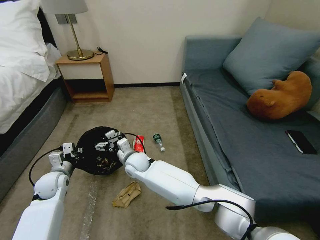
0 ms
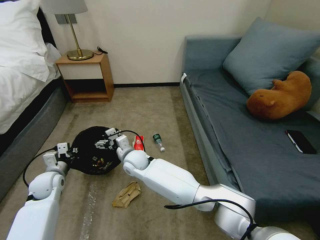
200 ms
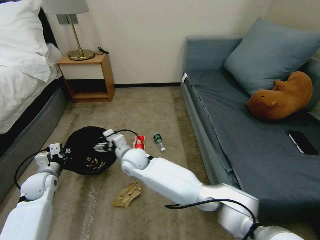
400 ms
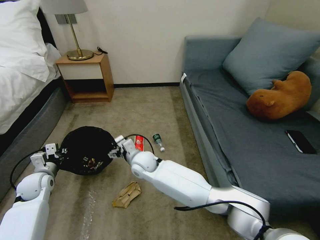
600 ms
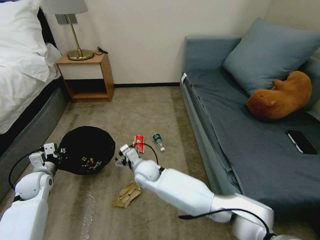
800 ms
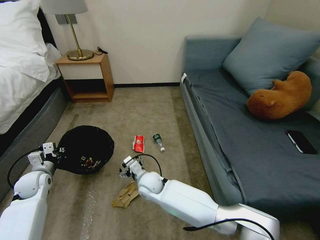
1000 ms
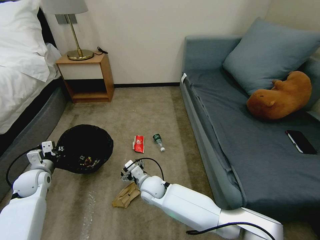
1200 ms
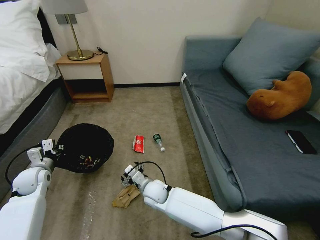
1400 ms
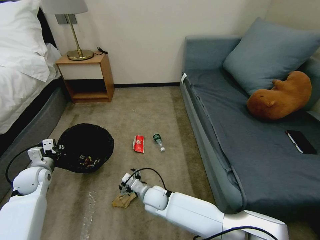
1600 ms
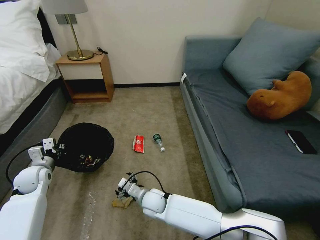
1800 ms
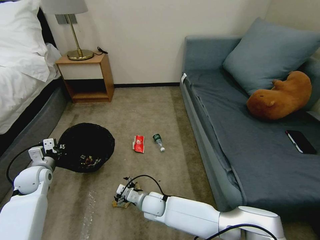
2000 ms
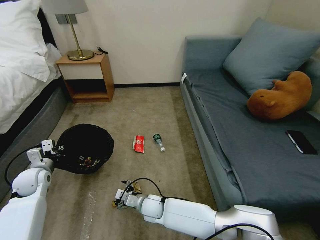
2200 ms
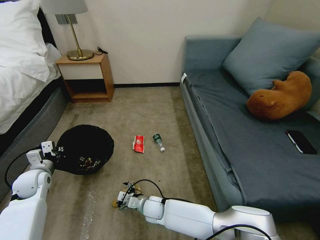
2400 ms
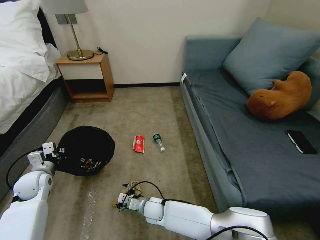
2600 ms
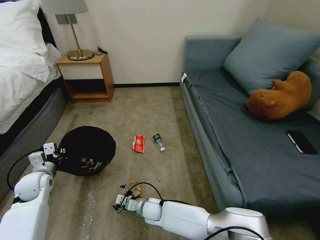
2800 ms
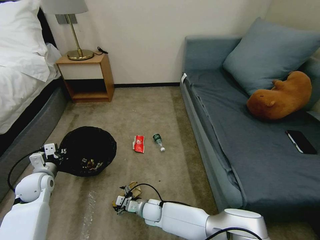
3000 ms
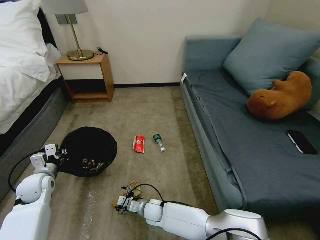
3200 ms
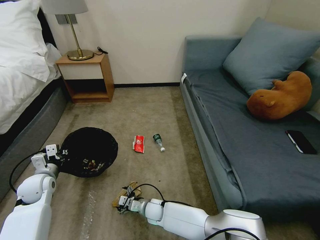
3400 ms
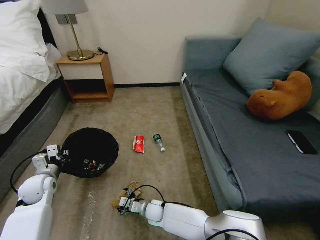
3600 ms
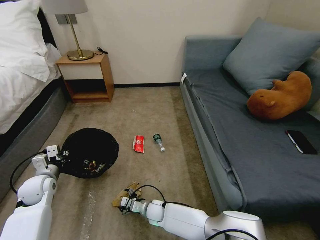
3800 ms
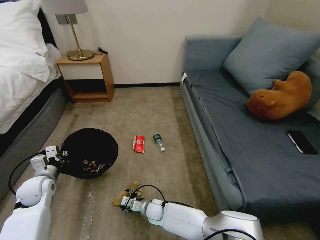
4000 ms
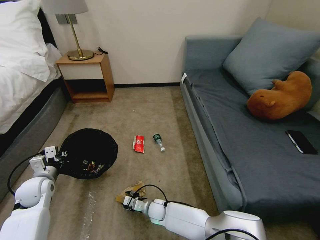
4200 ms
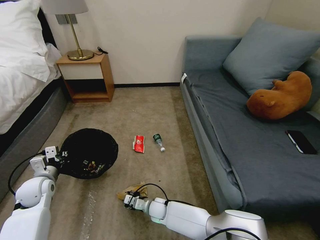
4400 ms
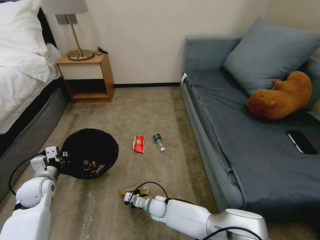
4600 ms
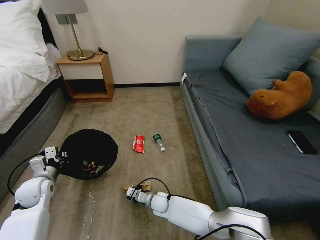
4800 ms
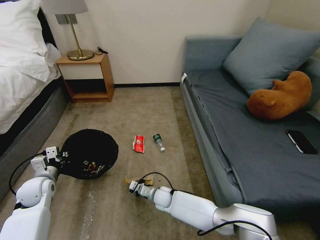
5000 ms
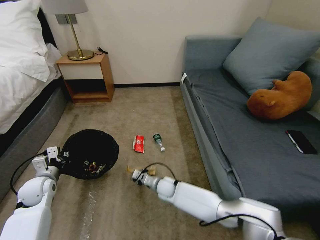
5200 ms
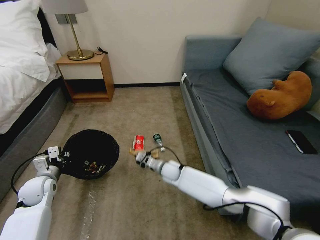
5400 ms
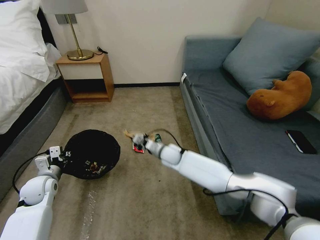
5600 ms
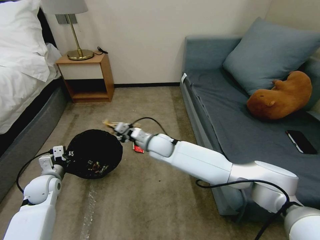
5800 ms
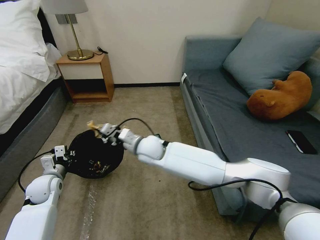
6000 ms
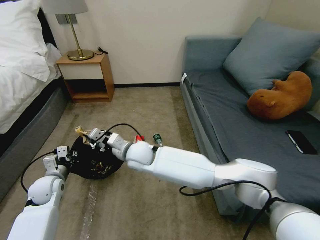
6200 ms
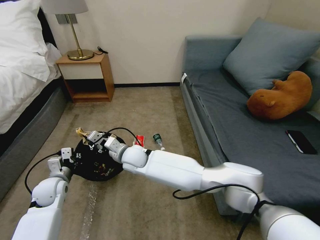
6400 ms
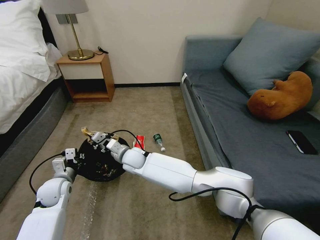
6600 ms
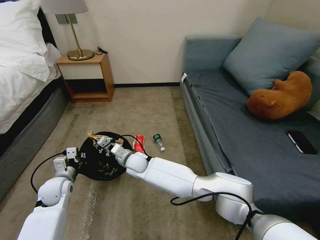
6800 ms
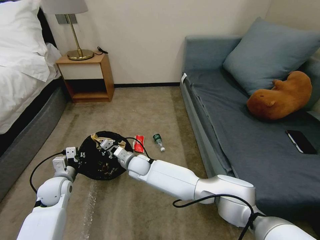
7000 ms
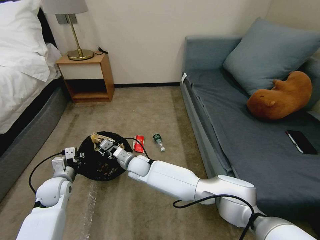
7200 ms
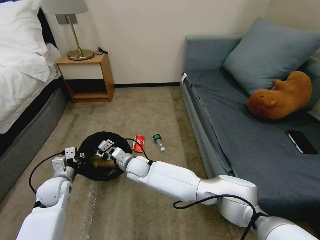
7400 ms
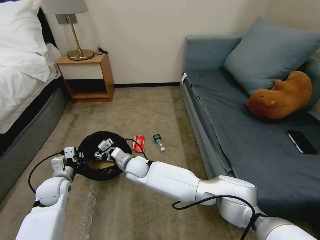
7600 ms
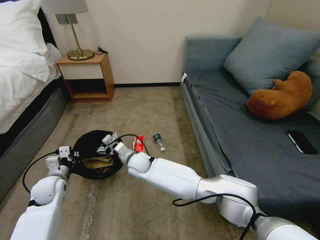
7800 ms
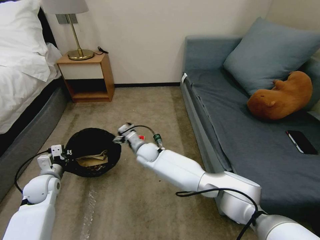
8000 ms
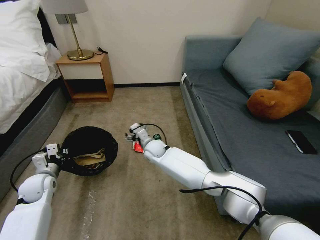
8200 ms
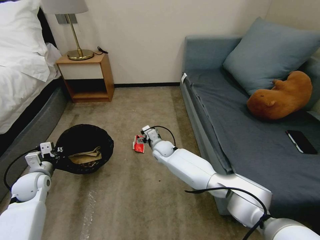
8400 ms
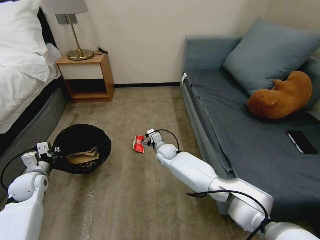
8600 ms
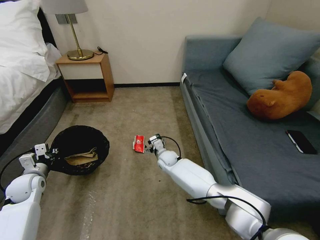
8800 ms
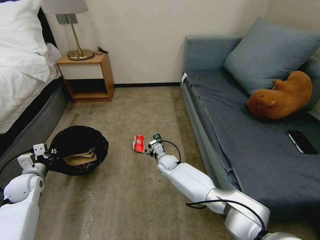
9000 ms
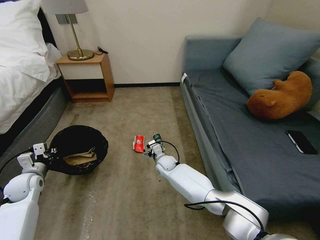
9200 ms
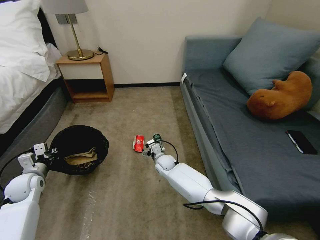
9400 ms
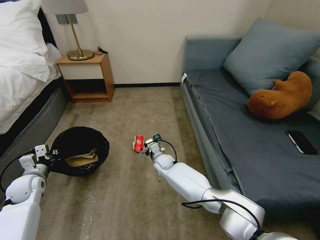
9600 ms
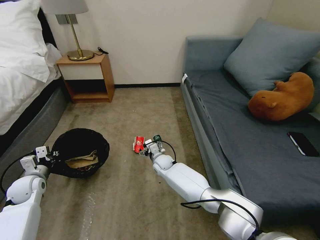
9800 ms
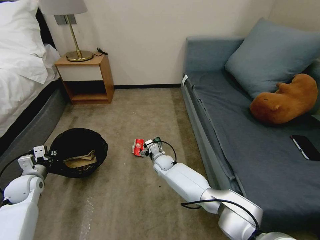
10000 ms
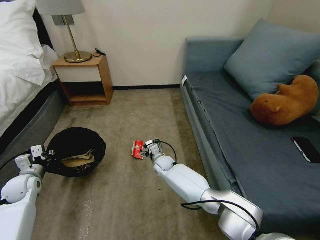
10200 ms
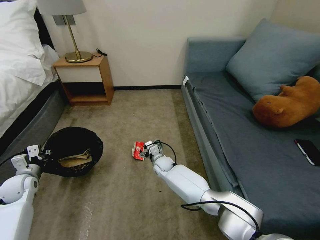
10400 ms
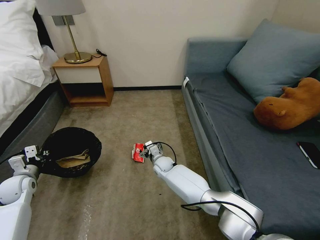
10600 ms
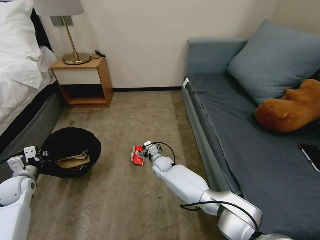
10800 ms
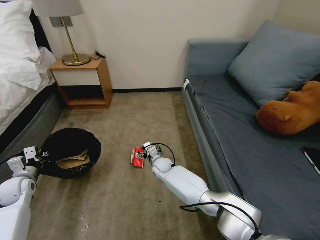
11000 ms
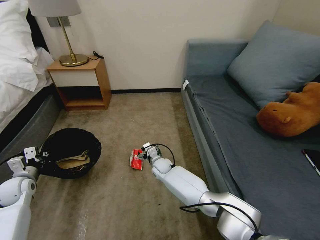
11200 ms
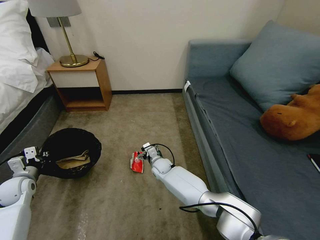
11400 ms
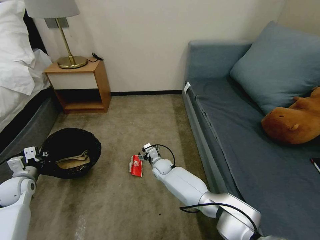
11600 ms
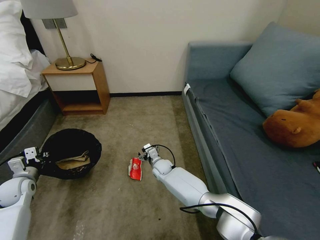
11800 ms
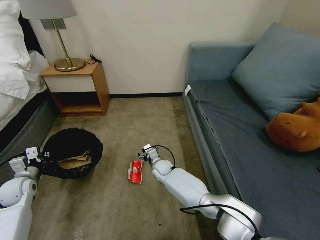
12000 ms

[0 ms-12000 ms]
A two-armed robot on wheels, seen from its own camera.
Task of the whole recording: Pick up the trash bin, then pick up the garbage on the floor and place it into the trash bin.
0 ms to 1600 ms: The right gripper moves backward, downward and to the right, some 15 cm. Meanwhile the left gripper is displaced to the left by some 5 cm.
1600 ms to 3000 ms: The right gripper travels downward by about 10 cm.
3000 ms to 4400 ms: The right gripper closes up.
4400 ms to 6000 ms: The right gripper shifts roughly 30 cm upward, and closes its fingers.
6000 ms to 7600 ms: The right gripper goes roughly 10 cm downward and to the left, and opens up.
7600 ms to 9000 ms: The right gripper travels to the right, downward and forward by some 15 cm. Meanwhile the left gripper travels to the left by roughly 10 cm.
9000 ms to 10400 ms: There are only small adjustments of the grippers.

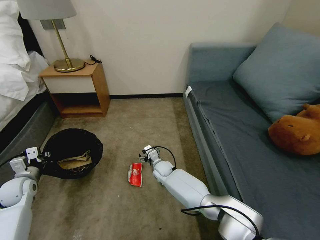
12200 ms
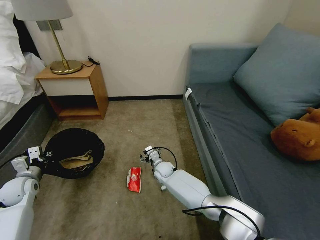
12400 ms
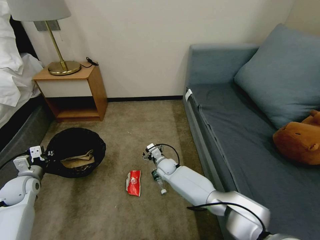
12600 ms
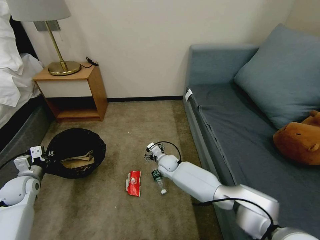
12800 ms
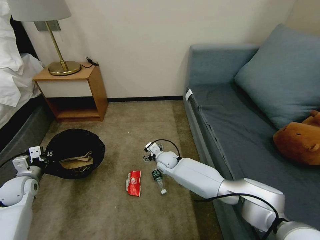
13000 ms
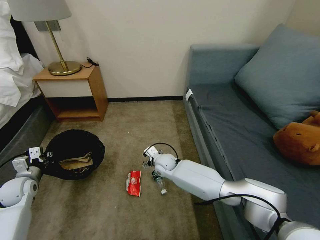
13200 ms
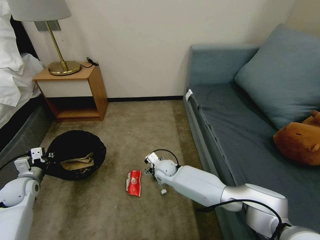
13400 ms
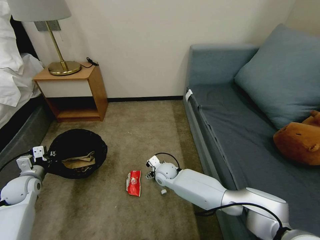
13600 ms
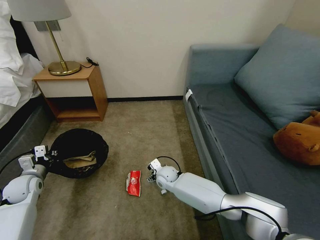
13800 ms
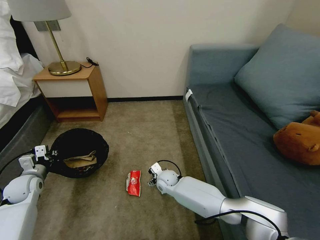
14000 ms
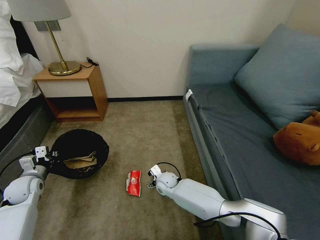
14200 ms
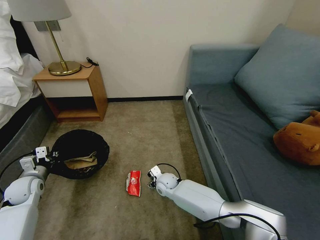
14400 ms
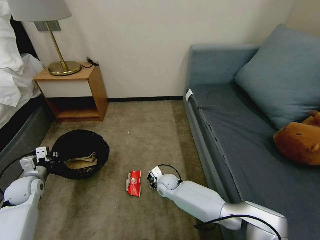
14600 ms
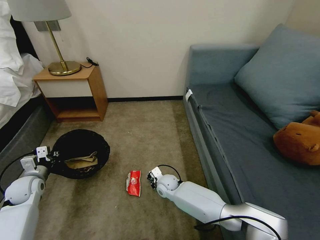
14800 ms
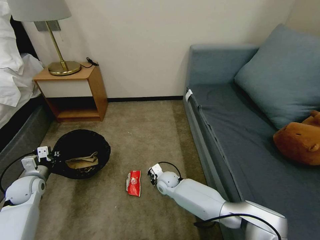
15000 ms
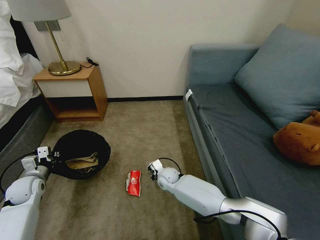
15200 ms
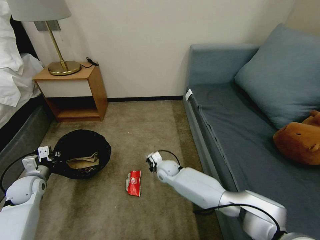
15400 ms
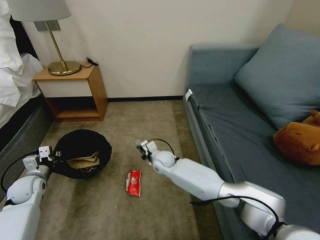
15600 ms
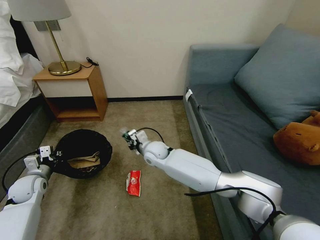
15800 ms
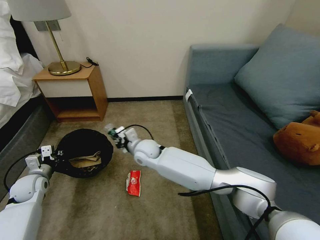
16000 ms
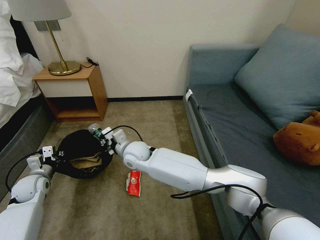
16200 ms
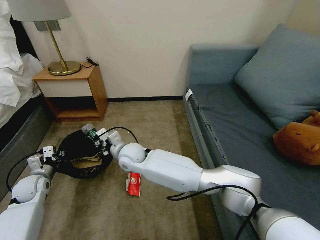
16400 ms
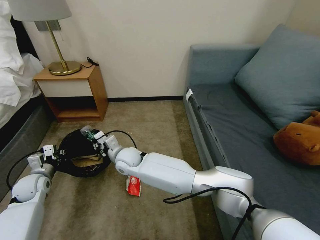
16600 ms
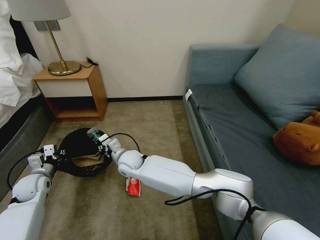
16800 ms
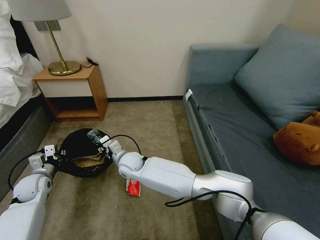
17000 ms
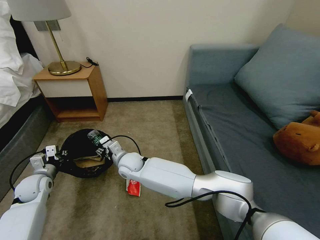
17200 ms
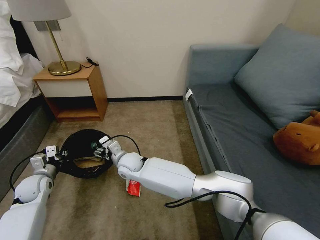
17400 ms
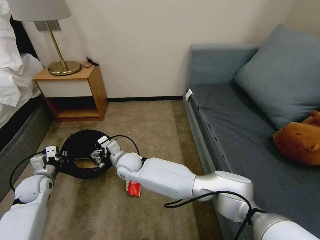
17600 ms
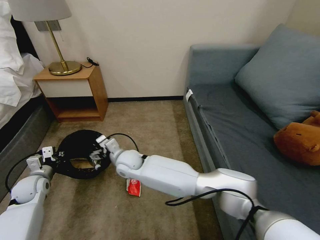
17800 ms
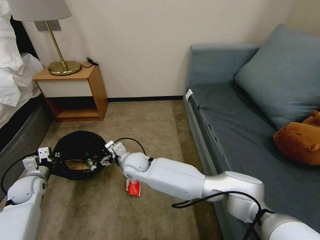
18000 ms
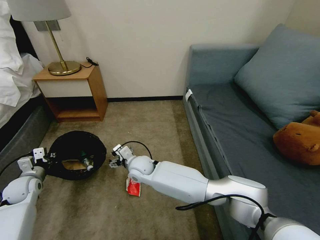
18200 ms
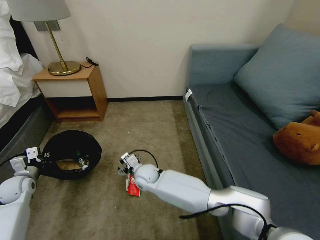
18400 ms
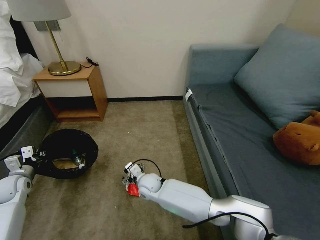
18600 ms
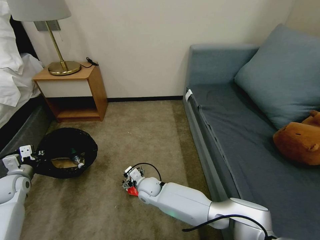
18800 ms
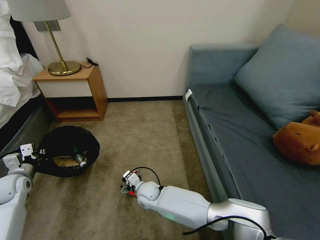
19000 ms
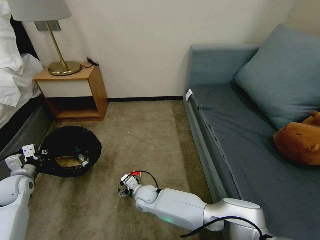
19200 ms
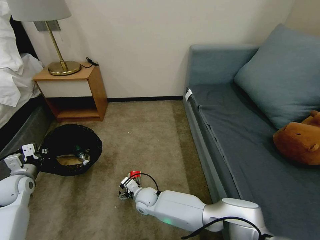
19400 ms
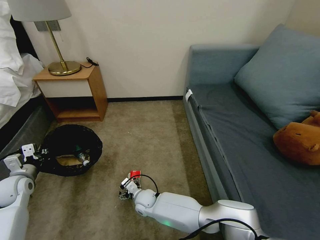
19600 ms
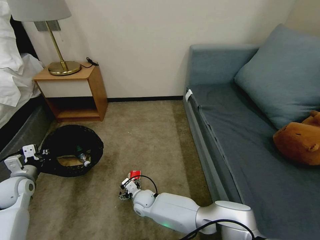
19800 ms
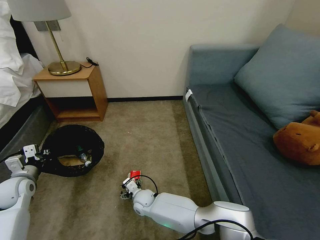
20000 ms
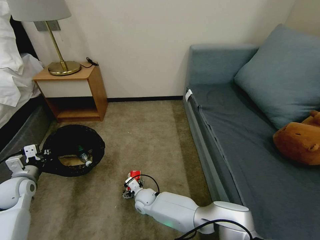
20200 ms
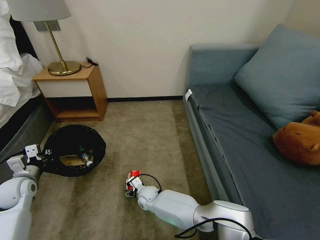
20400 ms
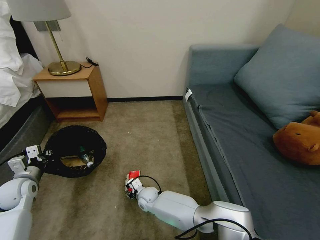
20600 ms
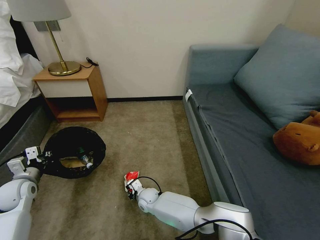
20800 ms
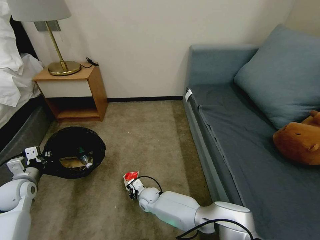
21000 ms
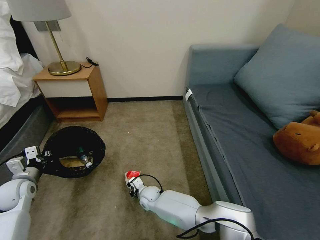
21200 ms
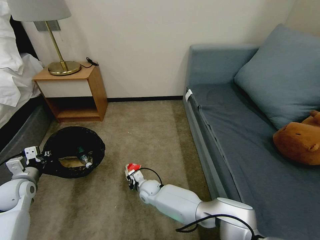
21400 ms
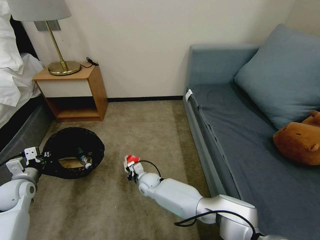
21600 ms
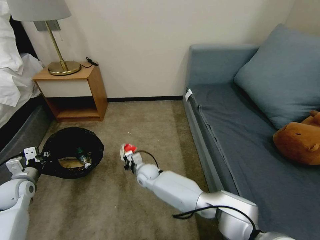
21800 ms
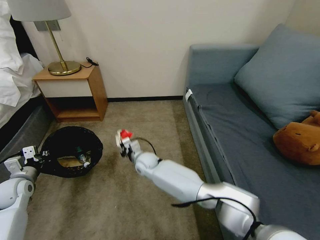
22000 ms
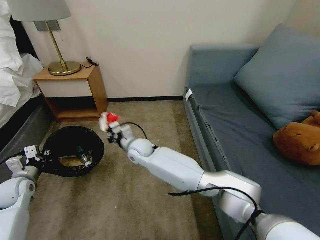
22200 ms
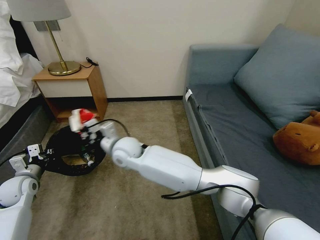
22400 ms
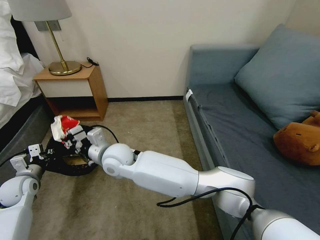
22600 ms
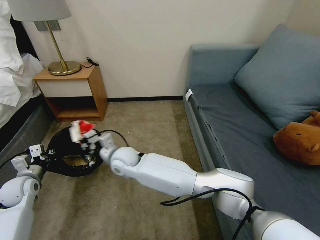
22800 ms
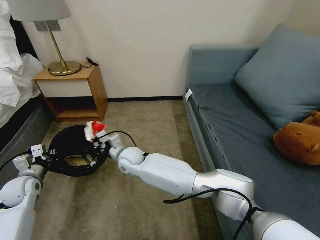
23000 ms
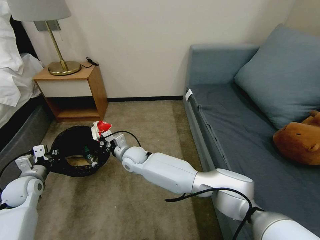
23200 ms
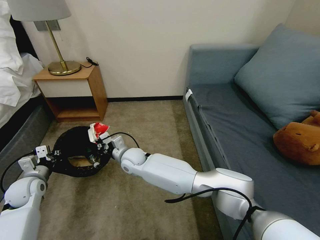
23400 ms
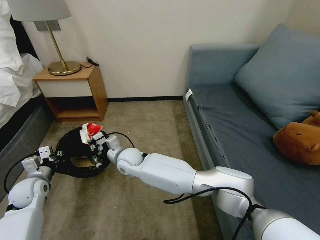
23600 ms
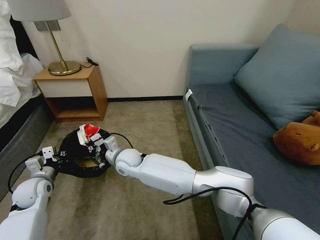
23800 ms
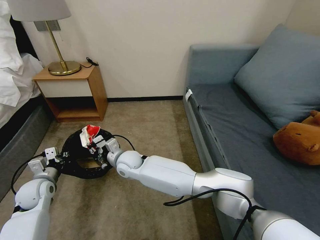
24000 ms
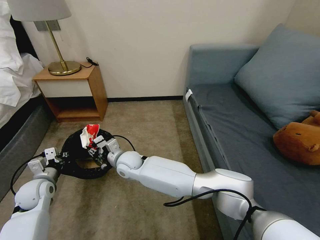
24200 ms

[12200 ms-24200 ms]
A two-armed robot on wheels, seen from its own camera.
Task of the whole recording: Pick up the trash bin, then pick up the garbage on the floor and place it into the trash bin.
12200 ms to 13800 ms: The right gripper changes place by approximately 5 cm.
13800 ms to 15200 ms: The right gripper closes up.
15200 ms to 16600 ms: The right gripper heads to the left and upward, covering approximately 20 cm.
16600 ms to 18200 ms: The right gripper is displaced to the right by about 5 cm, and opens its fingers.
18200 ms to 19800 ms: The right gripper heads downward and backward, covering some 15 cm.
19800 ms to 21200 ms: The right gripper closes.
21200 ms to 22600 ms: The right gripper moves upward, about 30 cm.
22600 ms to 24200 ms: The left gripper is displaced to the right by about 5 cm. Meanwhile the right gripper heads downward, covering approximately 10 cm, and opens up.
